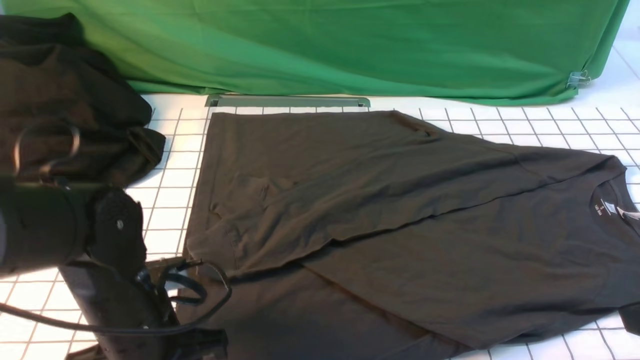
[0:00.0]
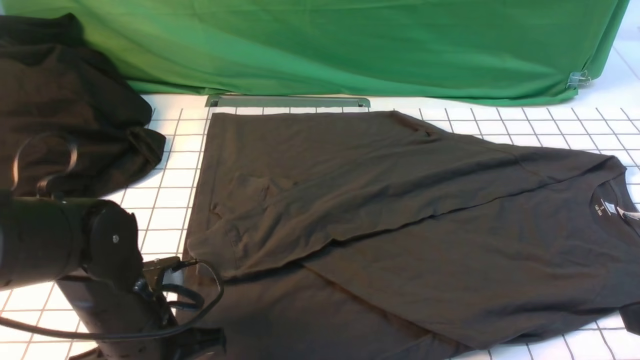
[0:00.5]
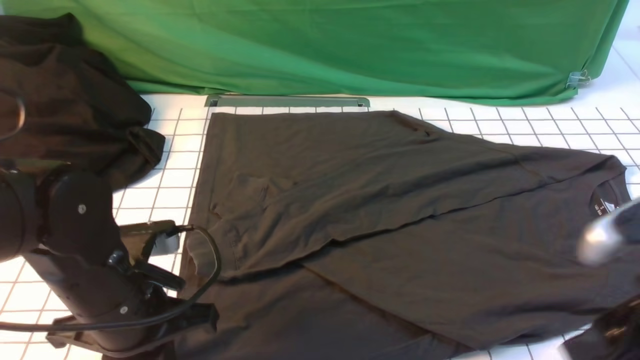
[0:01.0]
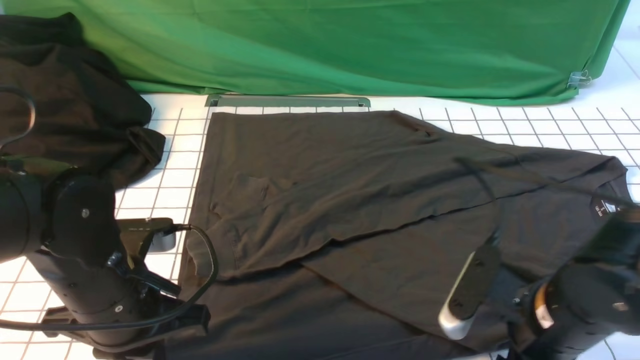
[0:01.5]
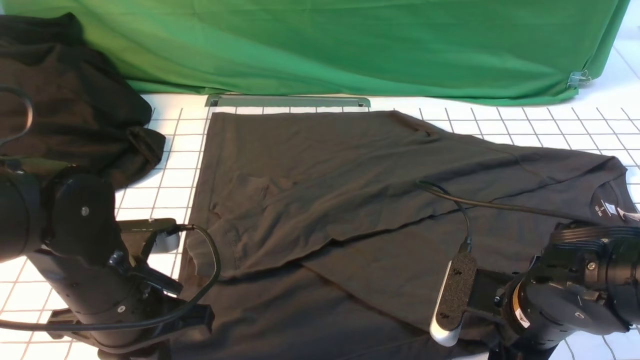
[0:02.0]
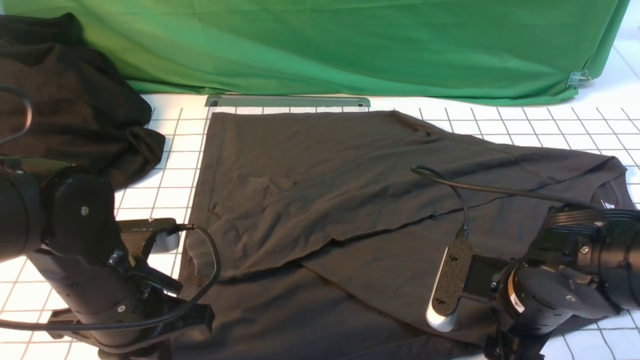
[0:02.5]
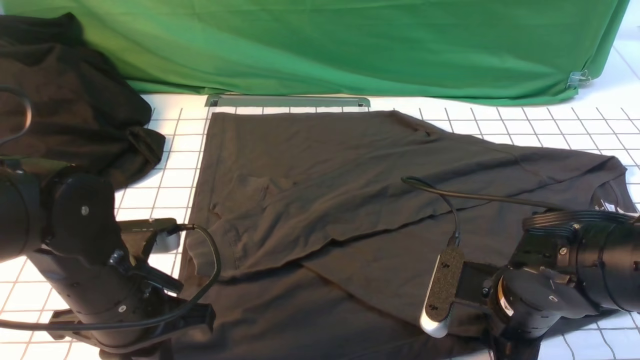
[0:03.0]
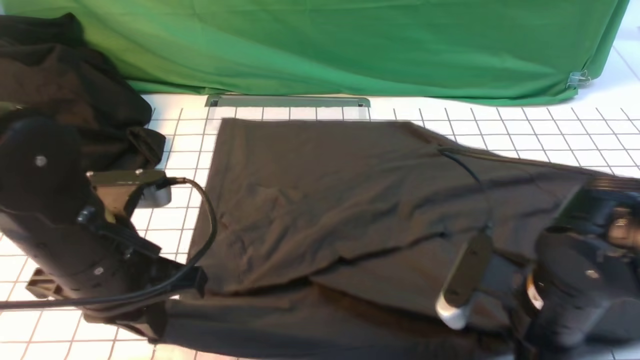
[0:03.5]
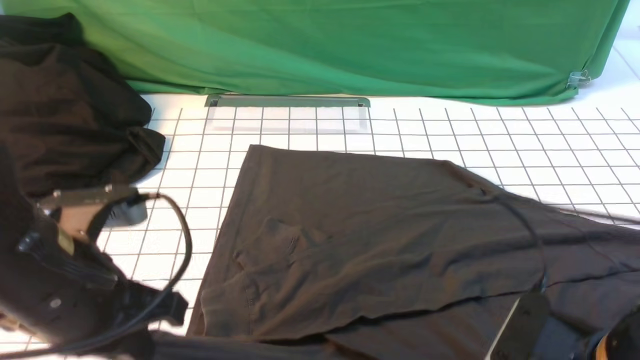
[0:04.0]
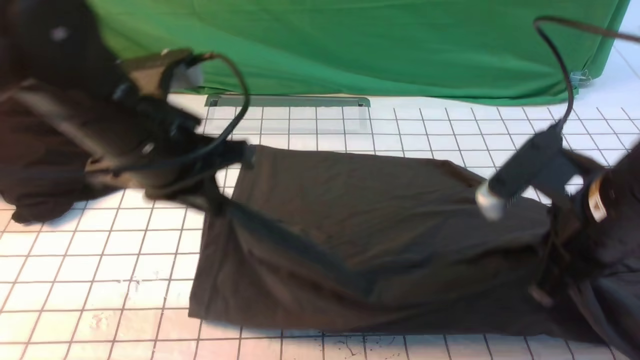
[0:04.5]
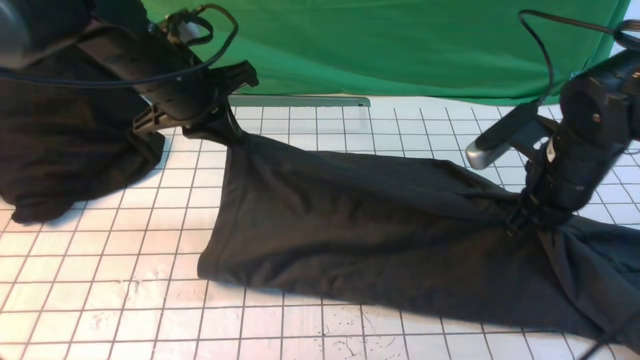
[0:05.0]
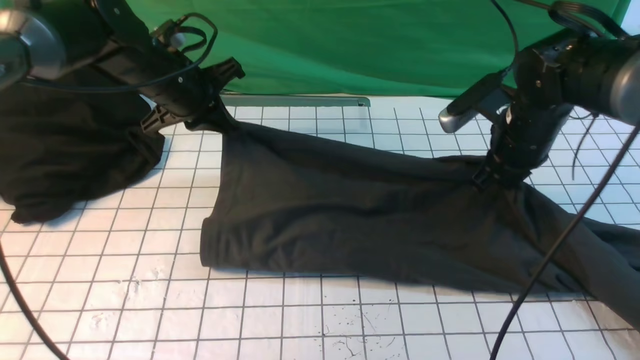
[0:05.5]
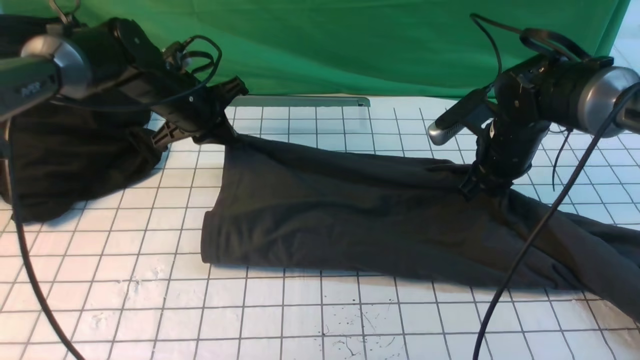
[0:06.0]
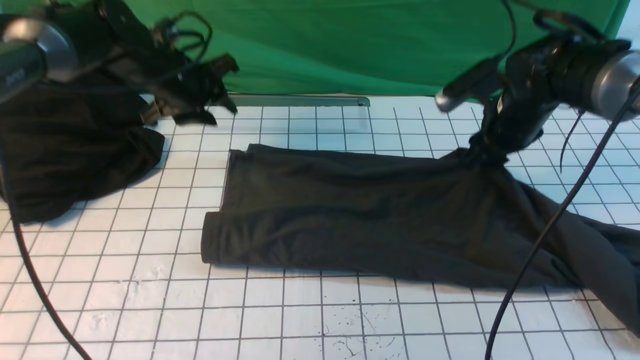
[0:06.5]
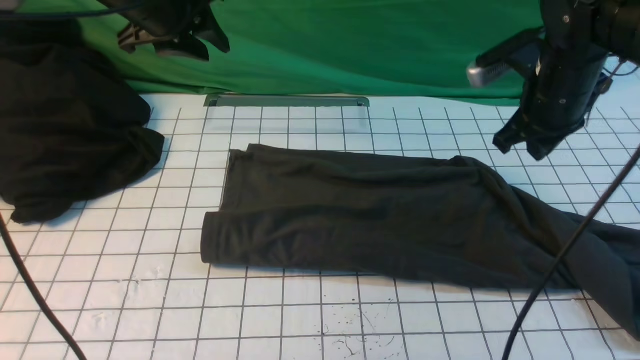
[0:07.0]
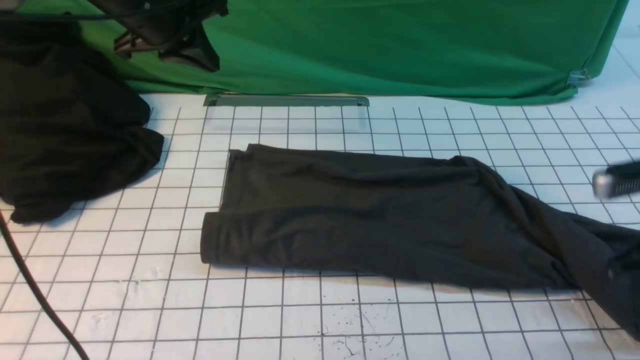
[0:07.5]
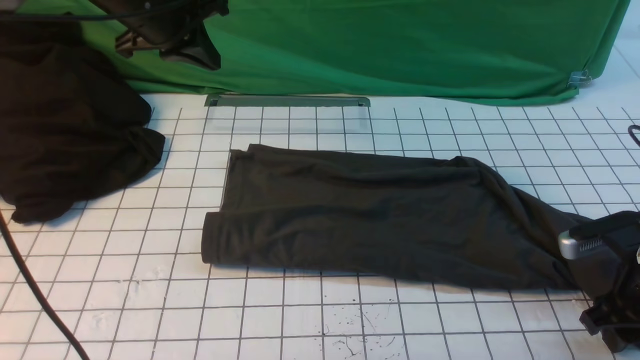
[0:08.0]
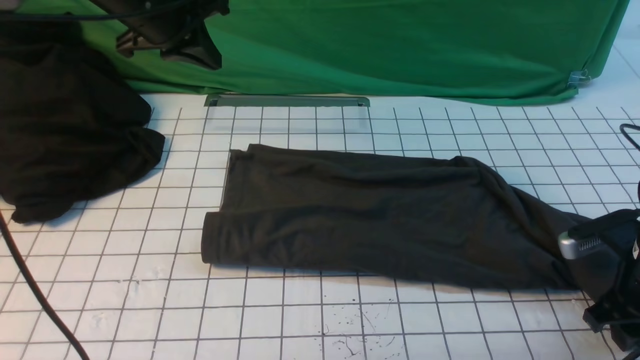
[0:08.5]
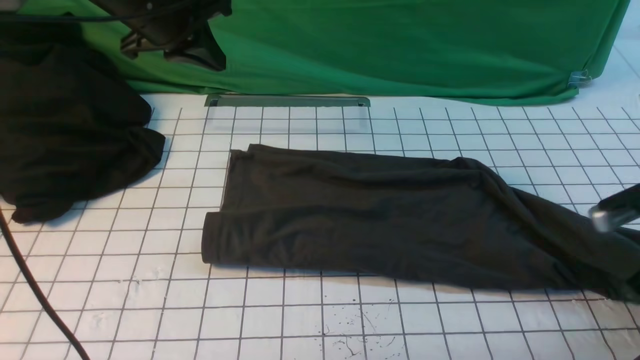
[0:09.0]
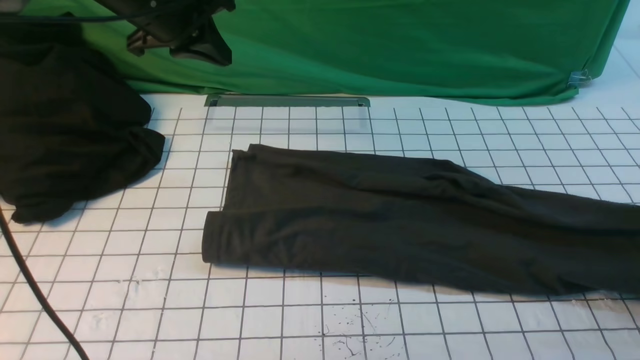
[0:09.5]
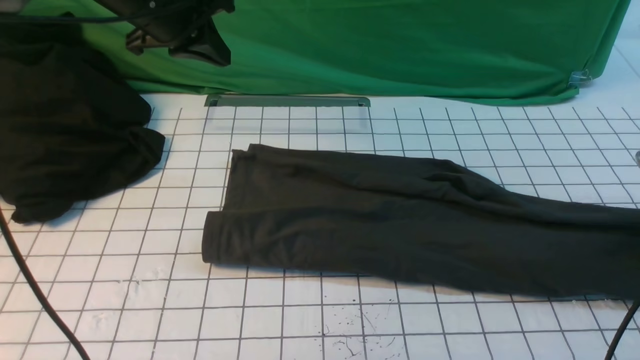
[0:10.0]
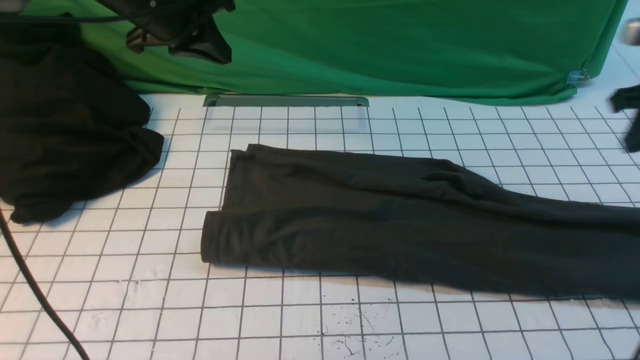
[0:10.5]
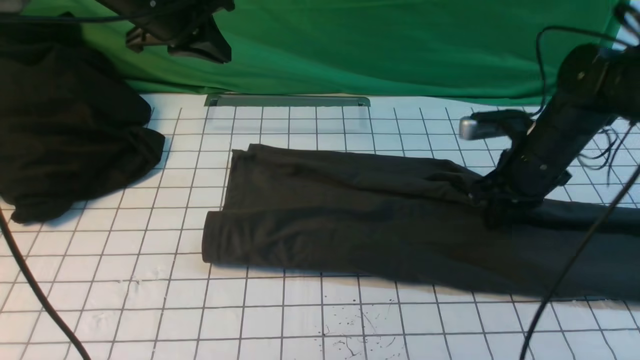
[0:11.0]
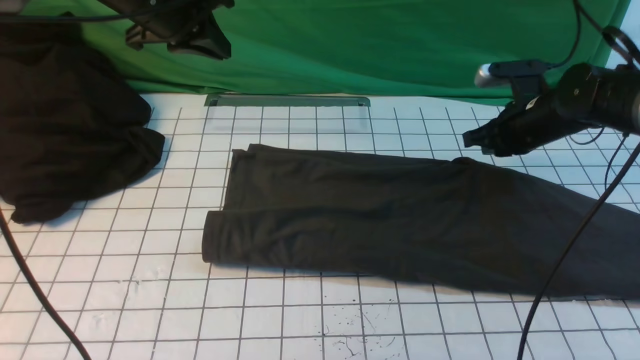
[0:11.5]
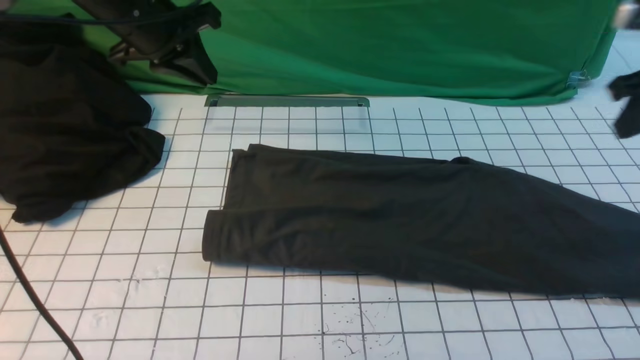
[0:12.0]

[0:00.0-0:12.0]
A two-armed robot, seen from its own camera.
Step, 0:00.0 to 0:03.0: use both arms simultaneously to clamp the lower edge of the clothing fabric.
Step, 0:03.5 to 0:06.5: use both arms to drag the lower edge of the fabric forward and fold it over the upper edge.
0:00.0 to 0:02.0: The left gripper closes. The right gripper moves downward, to the left and forward, approximately 20 cm, and opens up.
0:02.0 to 0:04.0: The left gripper heads upward, covering some 10 cm; the right gripper is displaced backward and upward by roughly 10 cm, and closes its fingers.
0:04.0 to 0:06.0: The grippers both shift forward by roughly 30 cm.
0:06.0 to 0:08.0: The left gripper travels upward by about 15 cm, and opens, then closes once more. Meanwhile the right gripper shifts approximately 20 cm backward and to the right, and opens.
0:08.0 to 0:10.0: The right gripper goes some 15 cm forward and to the right, and closes and opens again.
0:10.0 to 0:12.0: The right gripper moves upward and to the left, approximately 15 cm, and closes up.

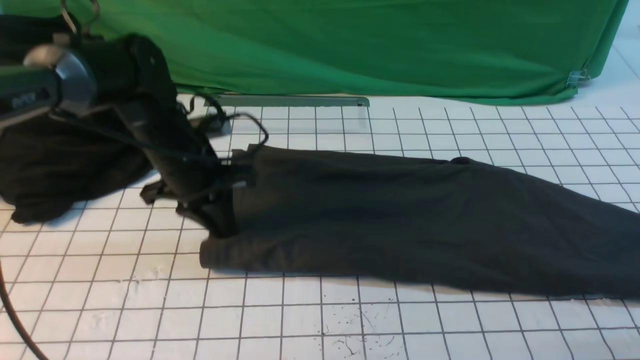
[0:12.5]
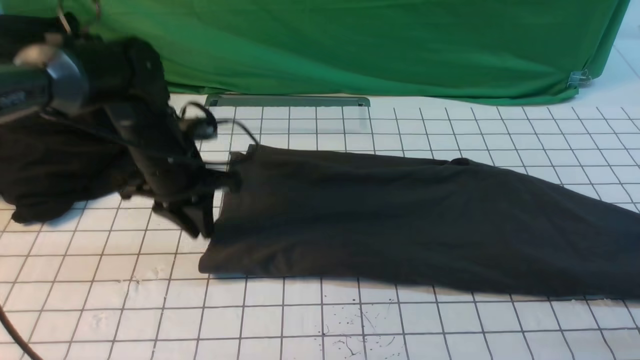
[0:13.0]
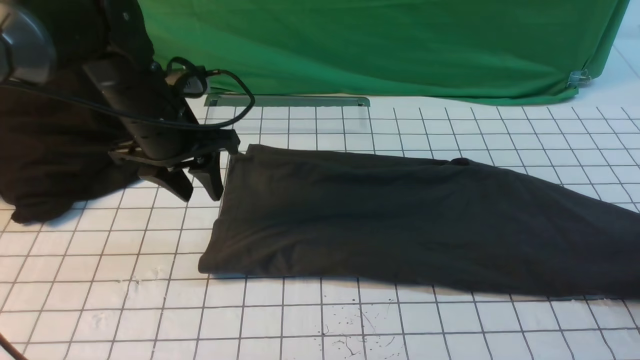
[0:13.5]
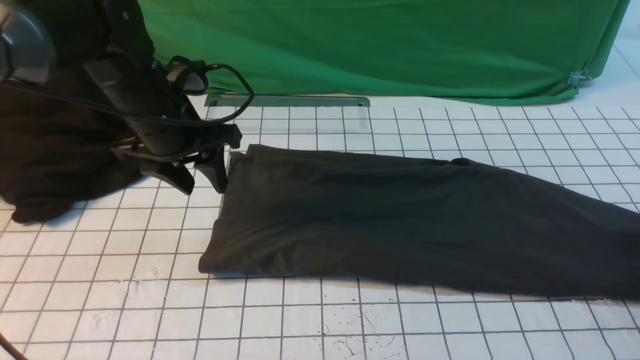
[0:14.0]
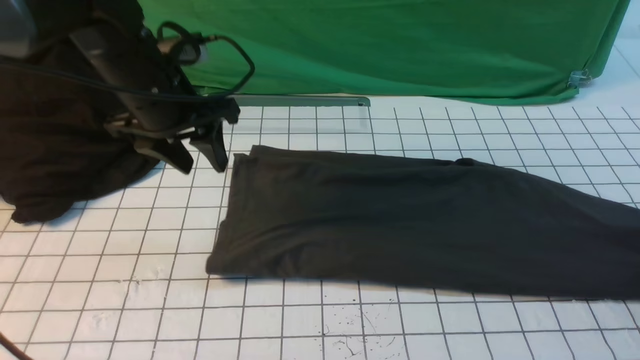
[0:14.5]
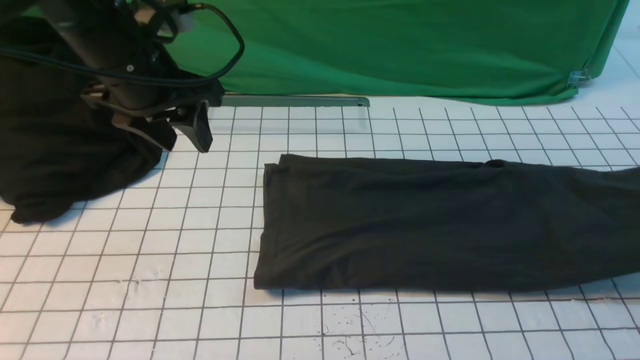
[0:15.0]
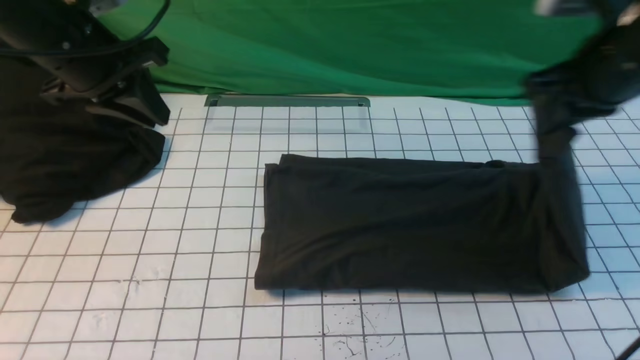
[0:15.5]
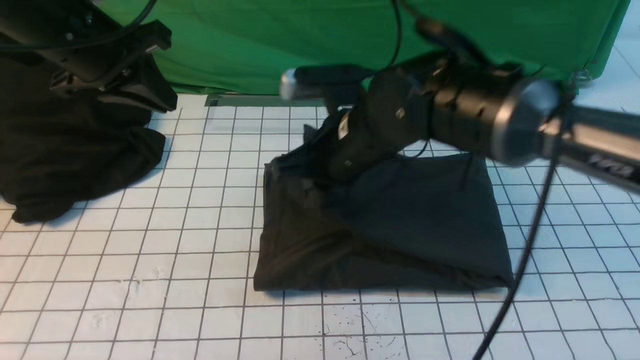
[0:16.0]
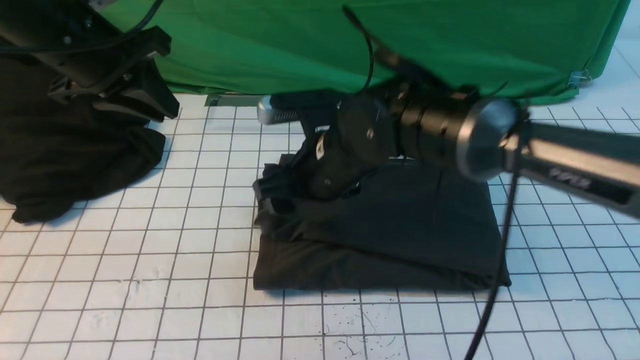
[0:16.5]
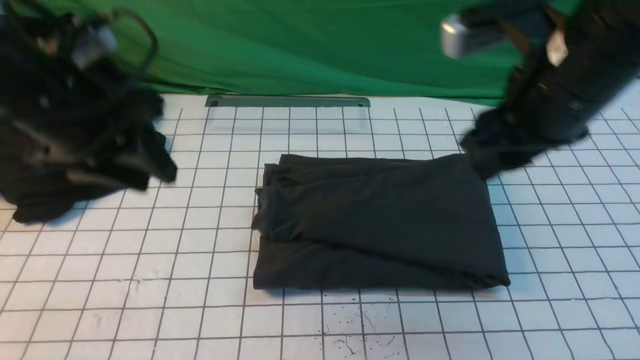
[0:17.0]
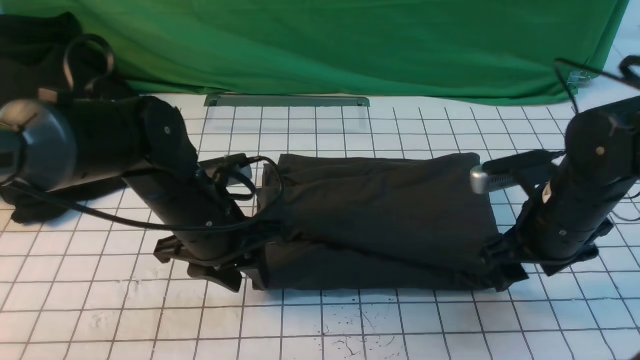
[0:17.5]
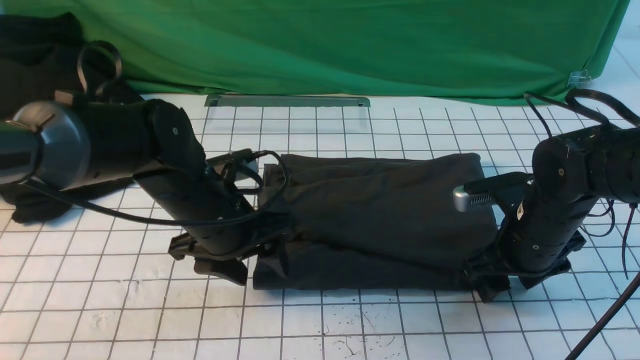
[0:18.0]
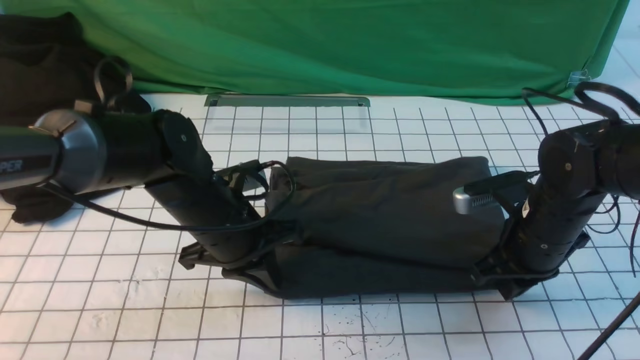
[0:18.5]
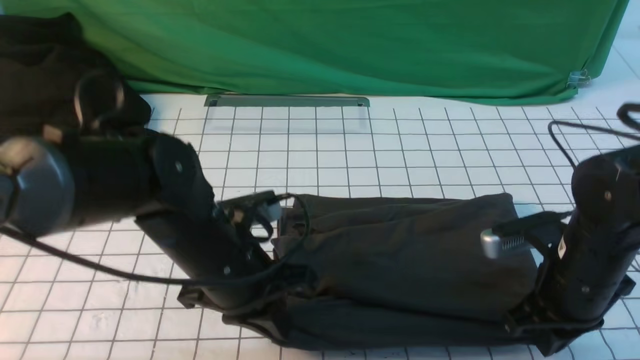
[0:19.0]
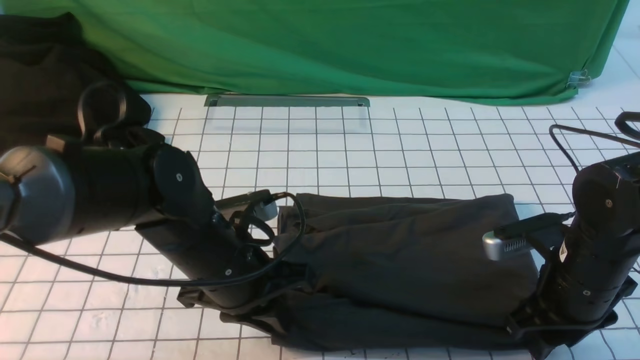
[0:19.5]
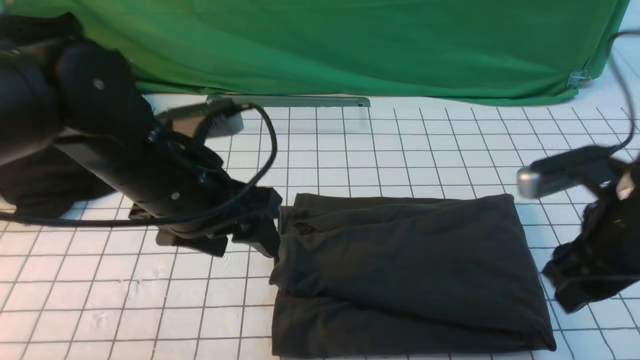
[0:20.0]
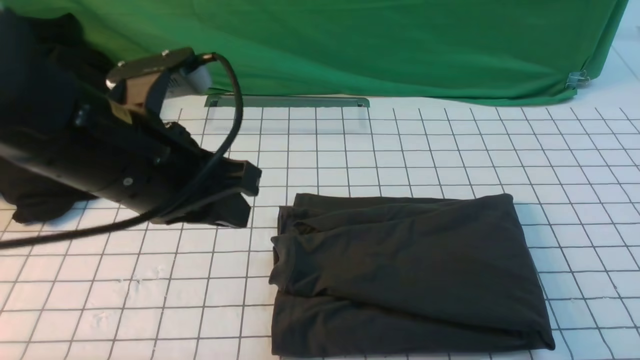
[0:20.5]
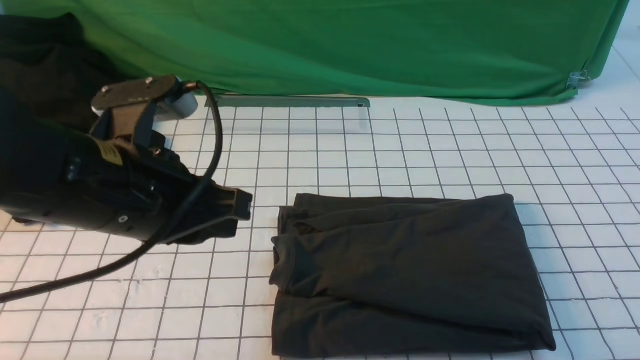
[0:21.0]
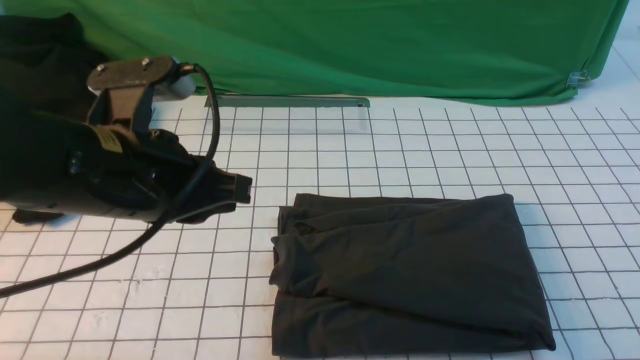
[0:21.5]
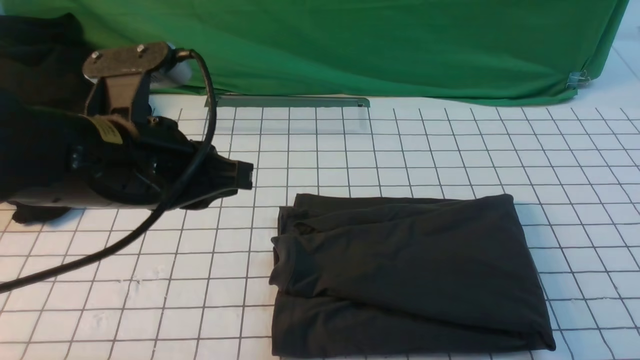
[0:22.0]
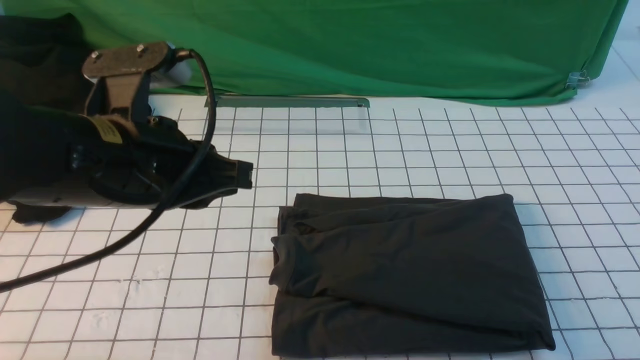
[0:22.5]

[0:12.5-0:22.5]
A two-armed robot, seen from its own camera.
Step, 0:12.5 to 0:14.5: use the right arm to clamp the right edge of the fabric.
Step, 0:15.0 to 0:16.5: use the right arm to drag the right edge of the fabric to the left and folds it over the left edge.
0:12.5 to 0:14.5: The right gripper is displaced downward and to the right by roughly 15 cm, and opens, then closes again, while the left gripper moves upward, about 10 cm, and opens.
0:14.5 to 0:16.5: The right gripper moves to the left, about 50 cm, and opens up. The left gripper travels to the left by about 5 cm, and closes.
0:16.5 to 0:18.5: The right gripper is displaced to the right by about 20 cm, and closes its fingers. Meanwhile the left gripper is displaced downward, to the right and backward by approximately 20 cm, and opens, then closes again.
0:18.5 to 0:20.5: The right gripper shifts roughly 30 cm backward and upward, and opens, then closes again. Meanwhile the left gripper travels upward and backward by roughly 15 cm, and opens and closes again.
0:20.5 to 0:22.5: The right gripper moves downward, some 20 cm.
